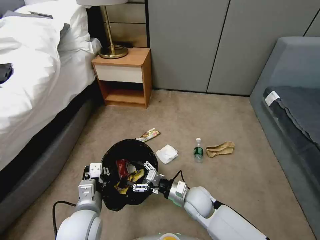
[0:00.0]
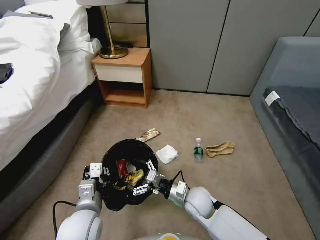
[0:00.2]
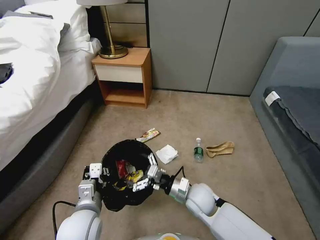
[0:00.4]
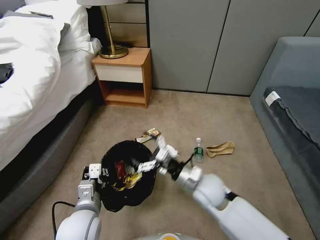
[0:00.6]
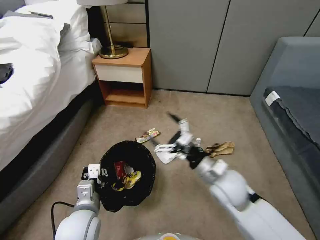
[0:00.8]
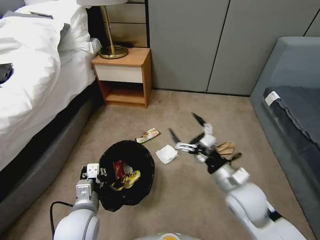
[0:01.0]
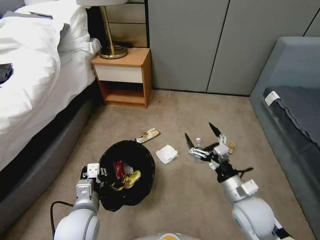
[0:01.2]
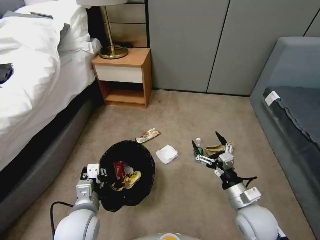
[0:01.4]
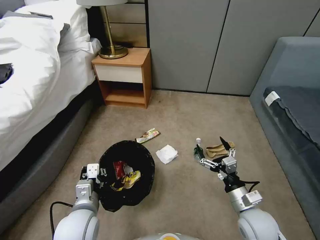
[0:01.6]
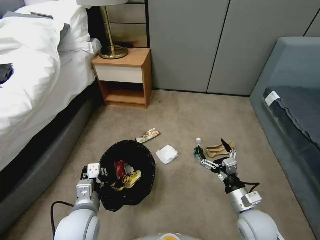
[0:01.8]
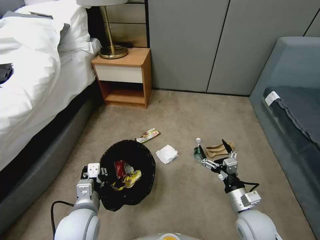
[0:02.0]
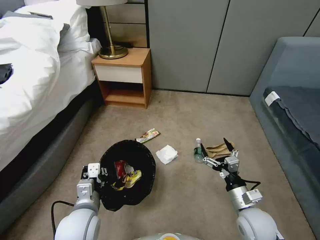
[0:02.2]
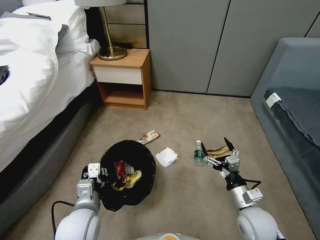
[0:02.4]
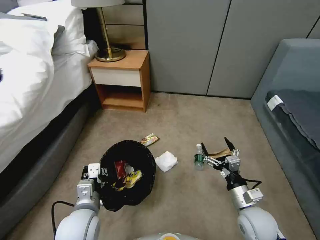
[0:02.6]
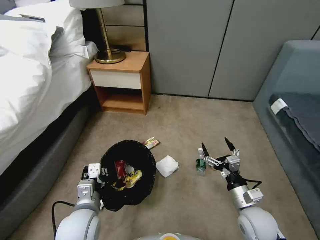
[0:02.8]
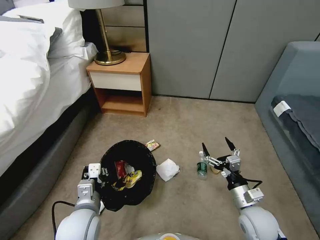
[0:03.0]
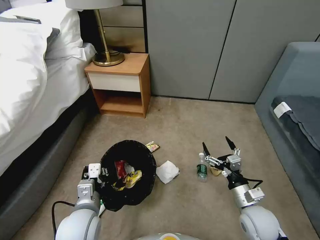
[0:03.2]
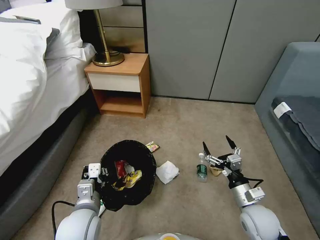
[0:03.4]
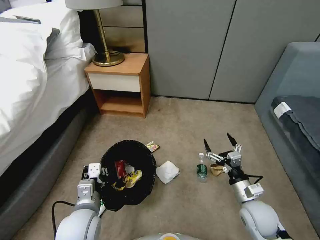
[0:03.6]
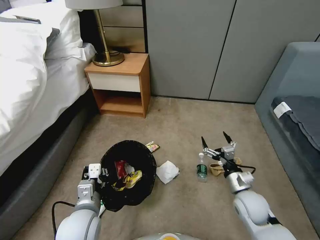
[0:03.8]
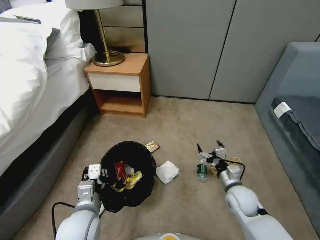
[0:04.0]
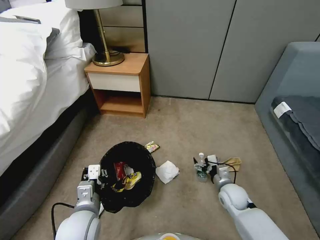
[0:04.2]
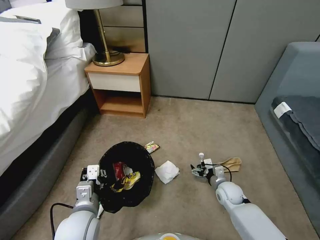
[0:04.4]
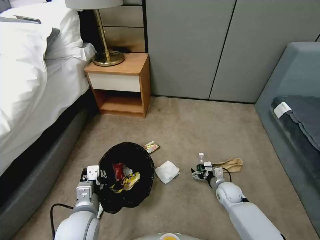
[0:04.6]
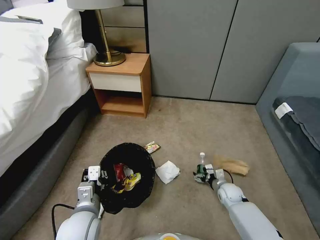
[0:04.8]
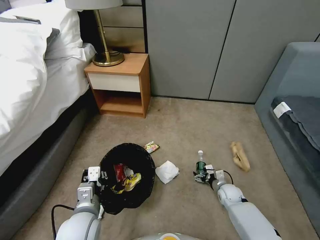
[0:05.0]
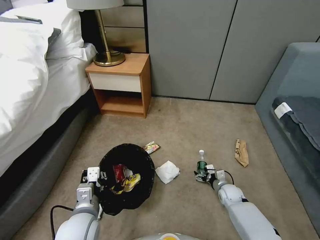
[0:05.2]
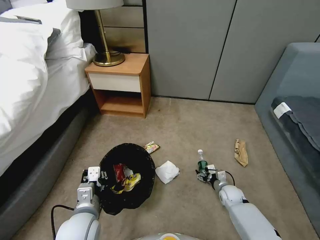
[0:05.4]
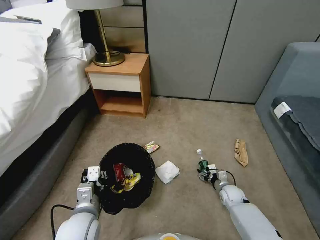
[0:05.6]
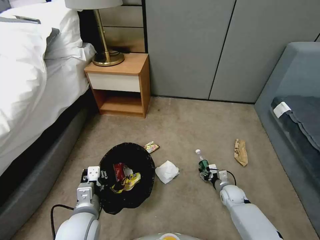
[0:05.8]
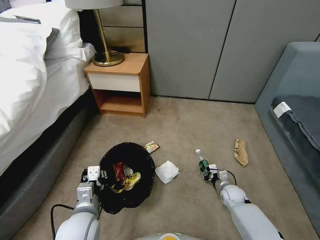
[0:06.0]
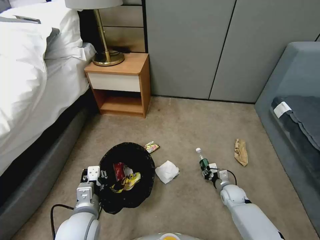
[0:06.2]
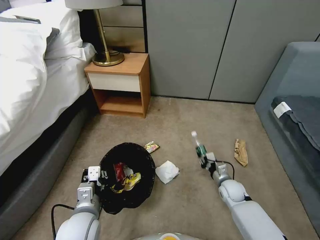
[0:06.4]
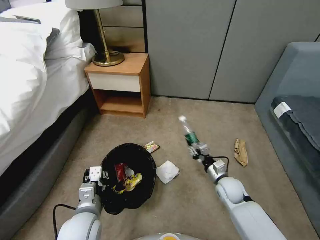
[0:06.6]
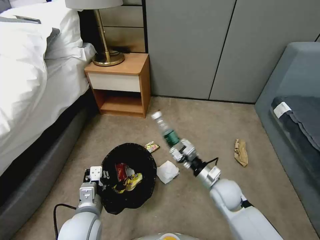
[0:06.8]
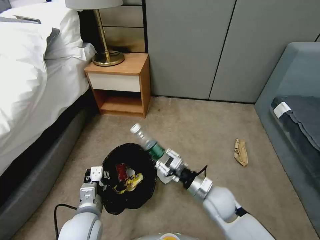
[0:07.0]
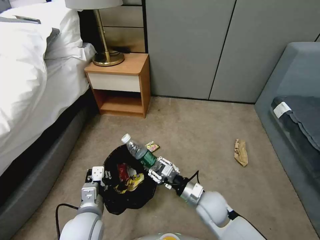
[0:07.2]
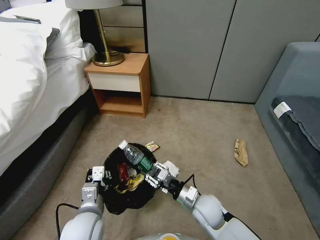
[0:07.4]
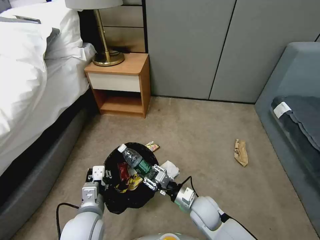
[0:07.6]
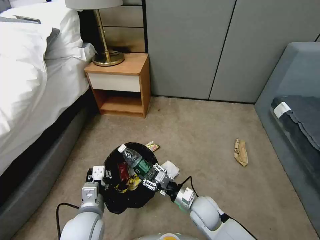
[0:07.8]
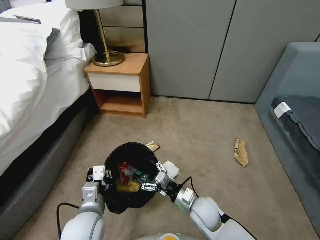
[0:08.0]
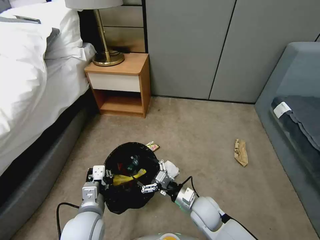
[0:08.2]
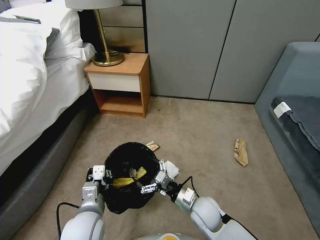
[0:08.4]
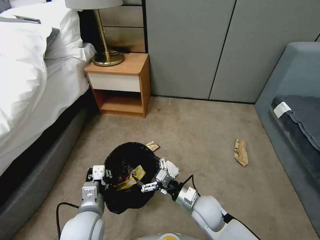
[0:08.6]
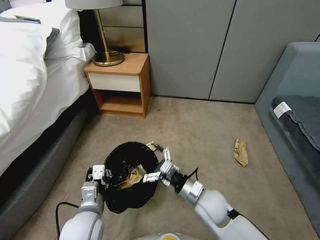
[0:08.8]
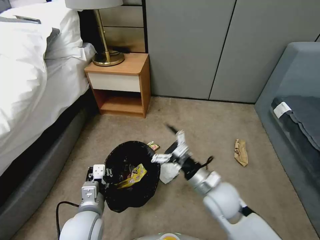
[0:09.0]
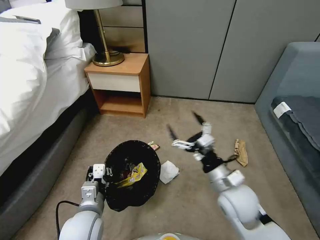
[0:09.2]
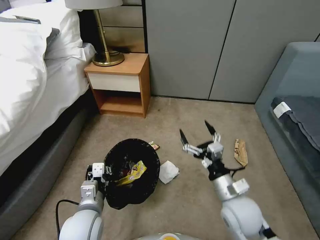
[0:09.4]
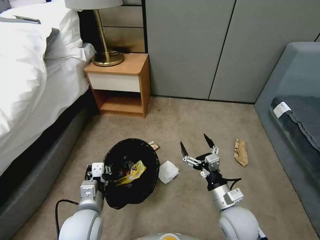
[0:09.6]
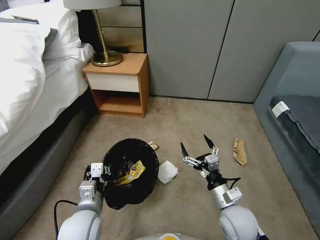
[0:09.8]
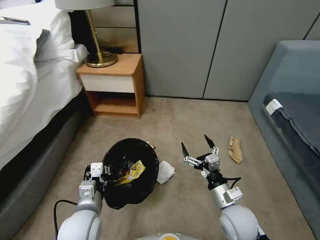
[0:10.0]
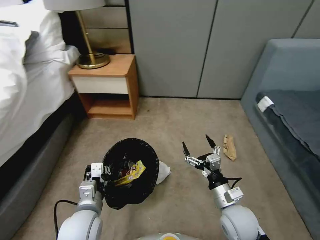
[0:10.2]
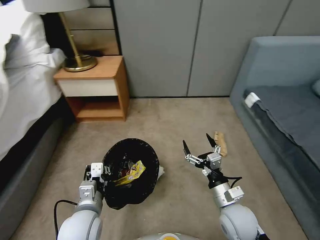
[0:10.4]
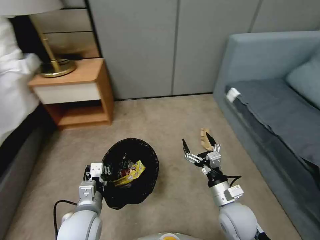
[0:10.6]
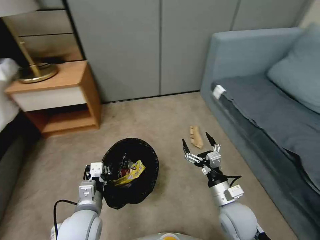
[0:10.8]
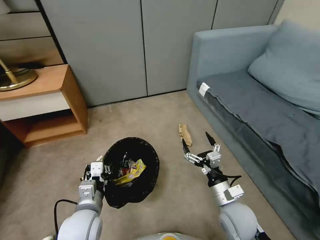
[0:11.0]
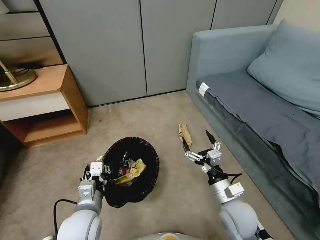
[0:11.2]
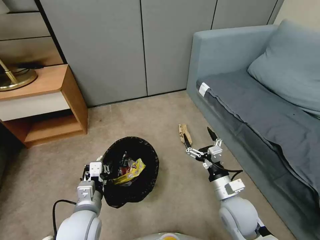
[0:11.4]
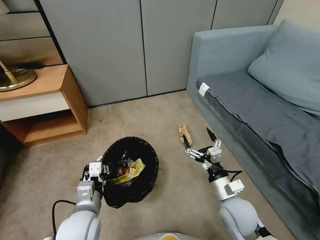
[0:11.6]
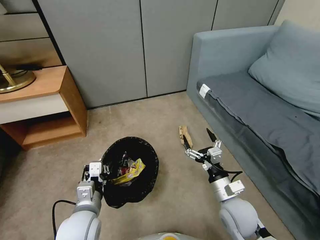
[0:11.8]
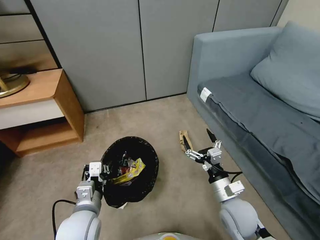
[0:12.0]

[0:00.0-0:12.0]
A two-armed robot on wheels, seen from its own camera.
Task of the whole recording: Pick up the trash bin, then pick up the garbage from the floor and place it into the trash bin.
0:00.0 to 0:01.6: The right gripper travels to the right and backward by roughly 15 cm.
0:03.0 to 0:04.4: The right gripper travels forward and downward by about 15 cm.
0:04.4 to 0:06.0: The right gripper goes approximately 5 cm downward, and closes its fingers.
0:06.0 to 0:07.6: The right gripper moves to the left, upward and backward, some 25 cm.
0:07.6 to 0:09.0: The right gripper moves upward, about 10 cm, and opens its fingers.
0:09.0 to 0:10.4: The right gripper heads to the right, covering roughly 5 cm.

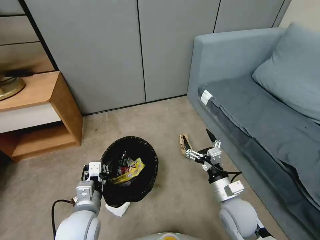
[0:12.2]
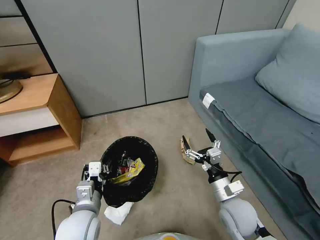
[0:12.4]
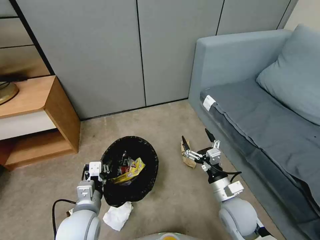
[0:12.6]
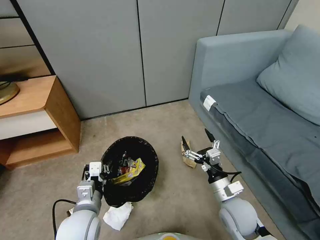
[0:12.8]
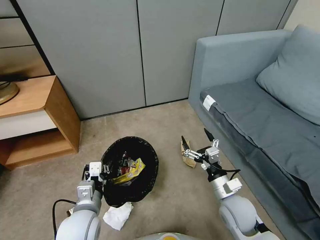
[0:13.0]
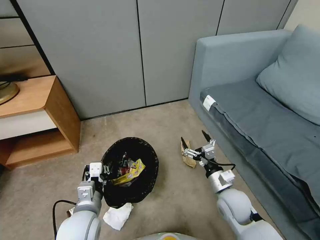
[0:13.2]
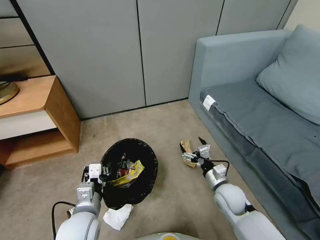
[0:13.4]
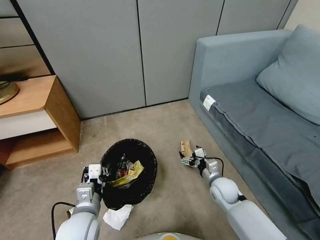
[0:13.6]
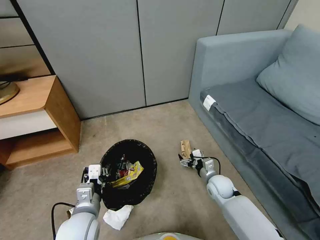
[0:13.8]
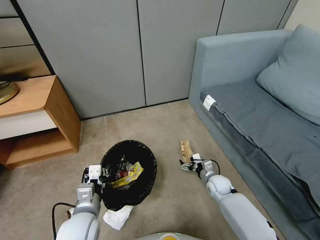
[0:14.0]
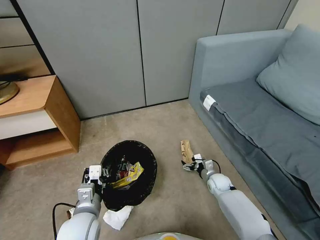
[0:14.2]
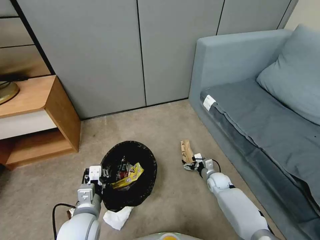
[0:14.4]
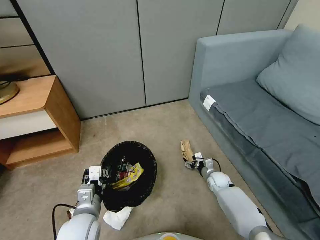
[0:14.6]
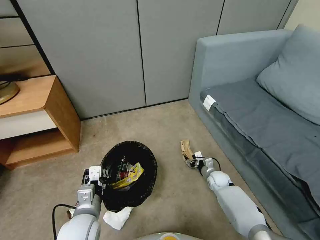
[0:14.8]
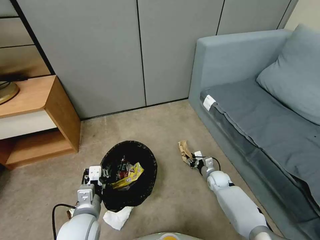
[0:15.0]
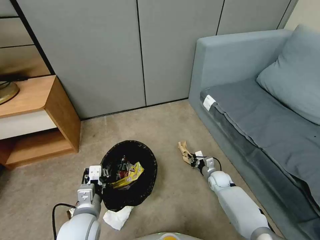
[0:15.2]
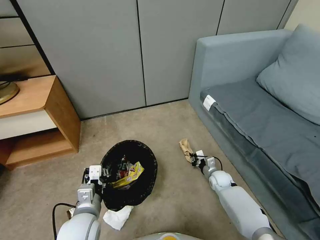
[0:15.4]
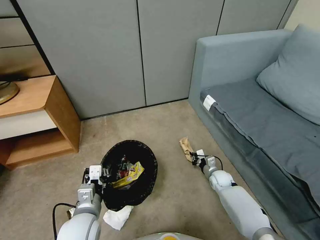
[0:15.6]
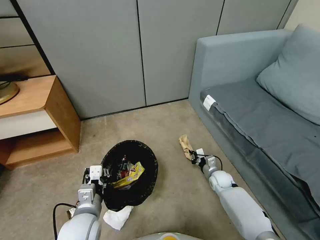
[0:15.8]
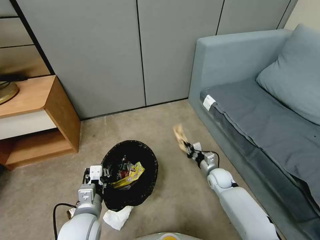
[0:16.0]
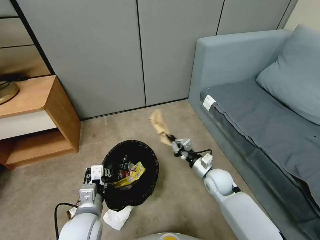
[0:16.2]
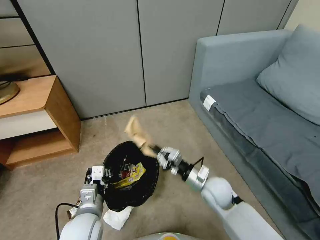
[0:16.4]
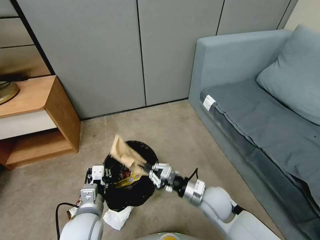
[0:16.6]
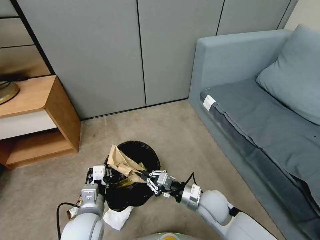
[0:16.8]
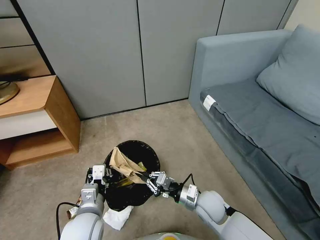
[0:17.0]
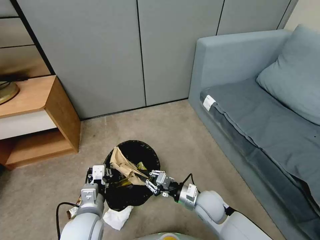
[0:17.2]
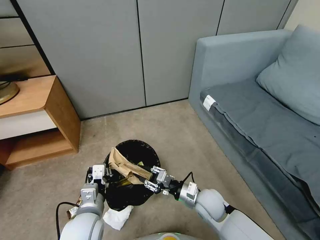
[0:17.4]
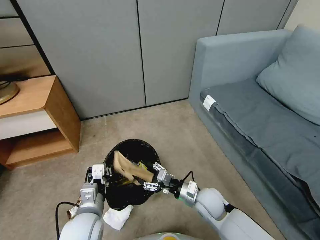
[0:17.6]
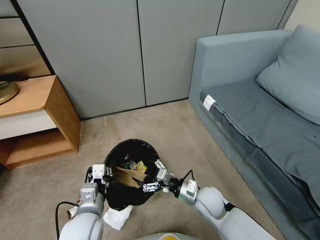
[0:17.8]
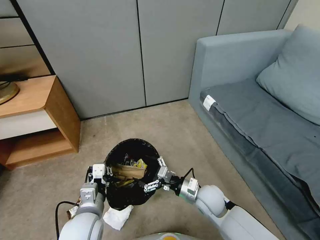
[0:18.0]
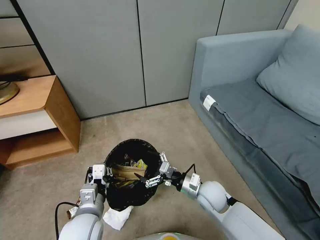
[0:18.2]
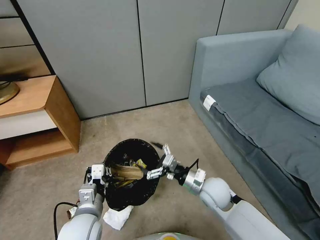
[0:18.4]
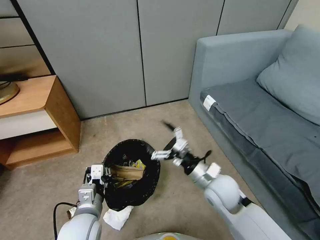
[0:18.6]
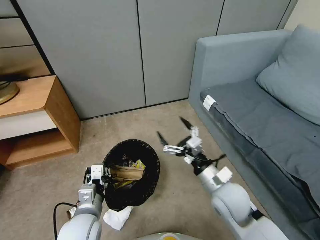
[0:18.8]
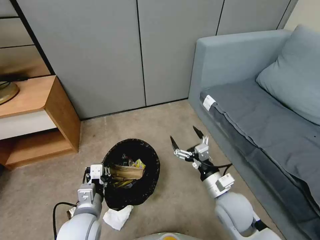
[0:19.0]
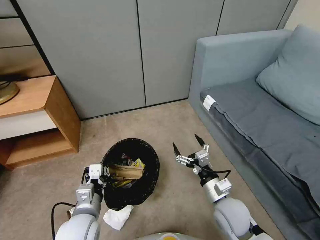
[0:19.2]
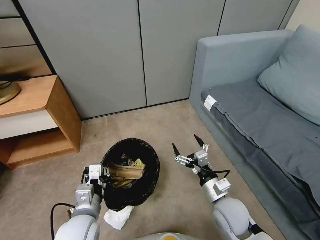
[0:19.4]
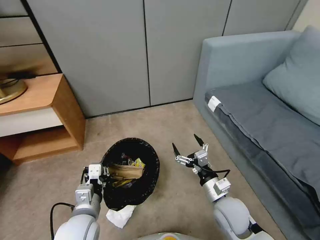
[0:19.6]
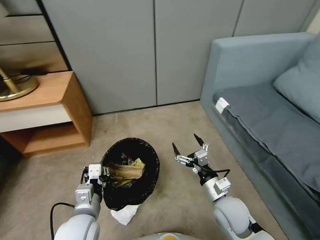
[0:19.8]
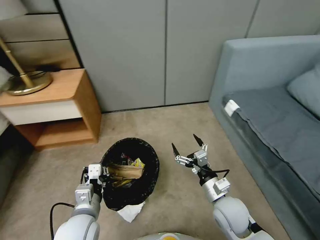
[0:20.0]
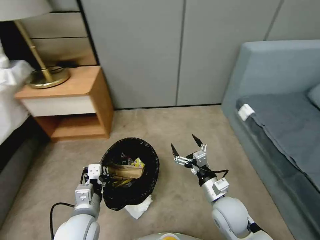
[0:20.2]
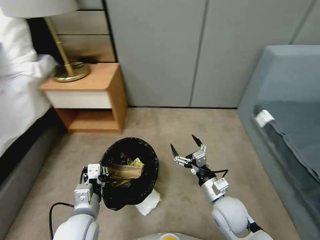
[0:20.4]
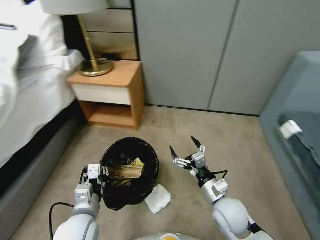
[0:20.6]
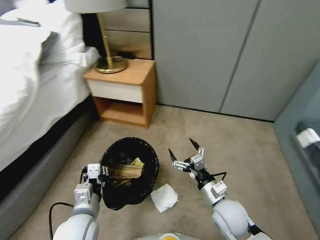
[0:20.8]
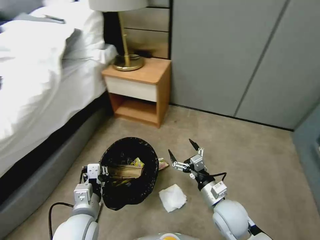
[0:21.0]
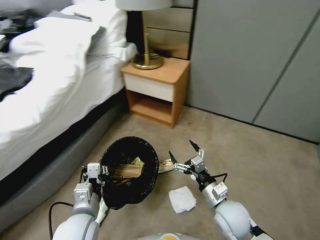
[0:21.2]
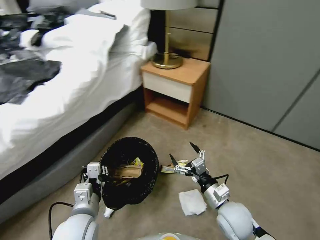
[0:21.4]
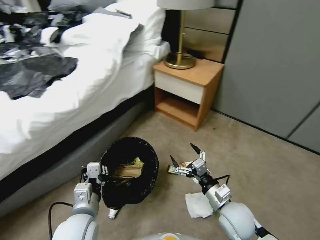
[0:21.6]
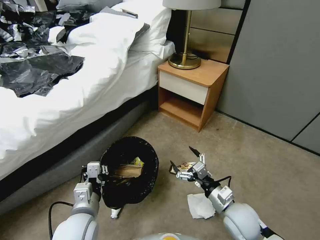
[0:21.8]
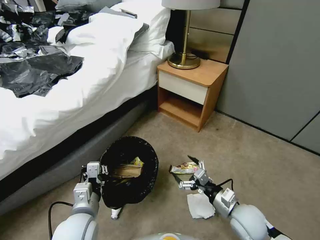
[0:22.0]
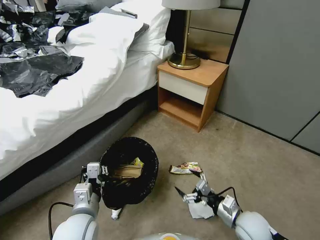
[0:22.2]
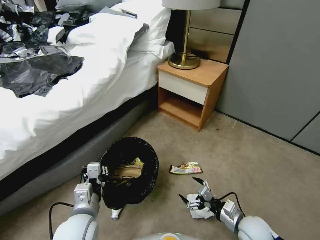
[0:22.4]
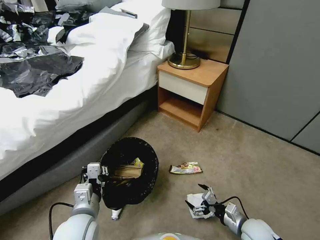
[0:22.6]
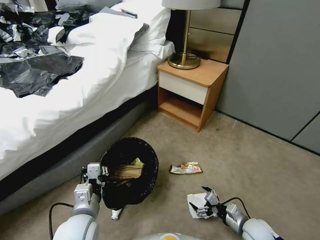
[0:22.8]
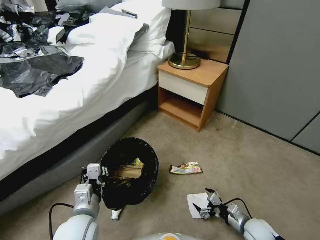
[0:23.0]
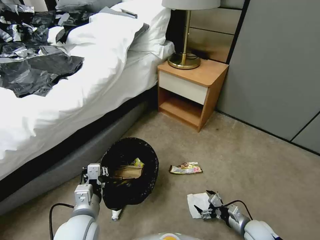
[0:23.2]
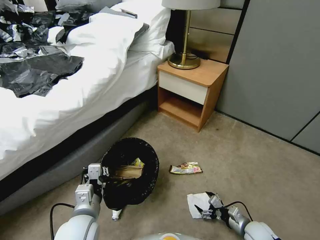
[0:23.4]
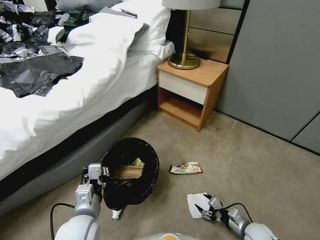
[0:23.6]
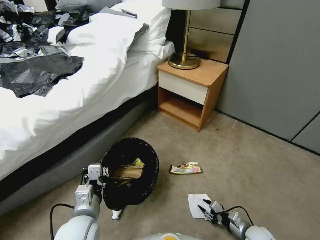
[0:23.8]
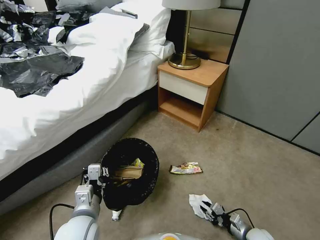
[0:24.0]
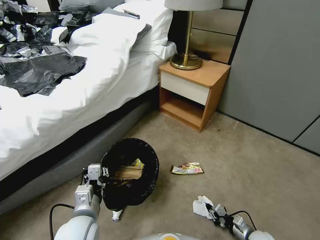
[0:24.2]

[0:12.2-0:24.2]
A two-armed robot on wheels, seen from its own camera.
Task of the whole recording: Pick up the trash bin, then pick up the garbage from the floor and place it into the trash bin.
0:12.2 to 0:13.8: The right gripper is displaced forward and downward by approximately 15 cm.
0:13.8 to 0:15.2: The right gripper is displaced downward and forward by approximately 10 cm, and closes up.
0:15.2 to 0:16.6: The right gripper is displaced upward, backward and to the left by roughly 25 cm.
0:16.6 to 0:18.2: The right gripper opens up.
0:18.2 to 0:19.8: The right gripper moves backward, roughly 5 cm, and reaches roughly 10 cm upward, then returns.
0:21.2 to 0:22.6: The right gripper goes roughly 15 cm to the right and downward.
0:22.6 to 0:24.2: The right gripper goes approximately 15 cm downward and to the right, and closes its fingers.
